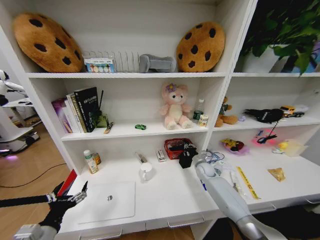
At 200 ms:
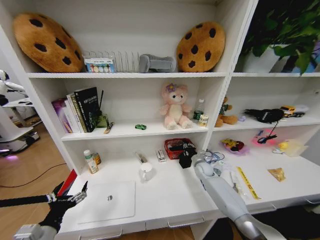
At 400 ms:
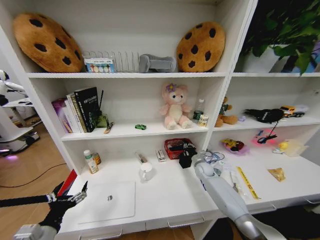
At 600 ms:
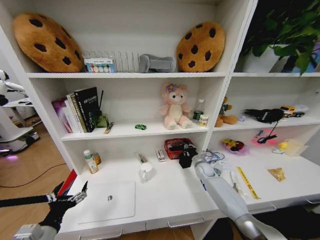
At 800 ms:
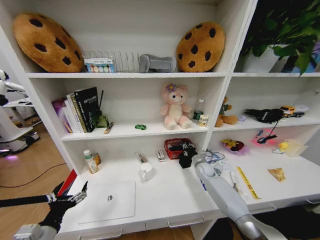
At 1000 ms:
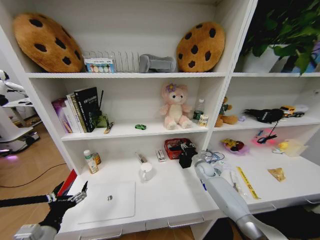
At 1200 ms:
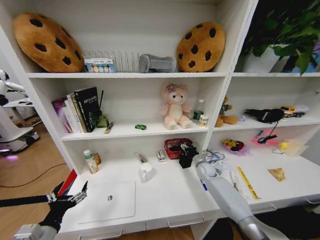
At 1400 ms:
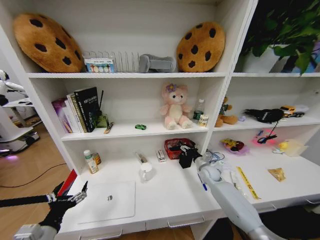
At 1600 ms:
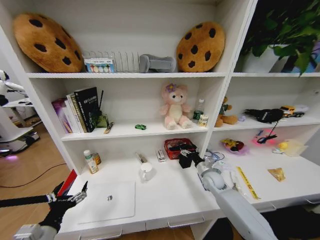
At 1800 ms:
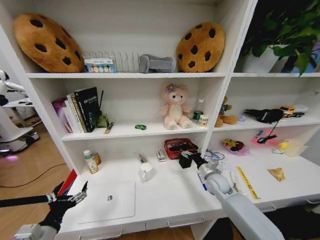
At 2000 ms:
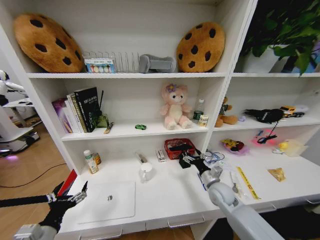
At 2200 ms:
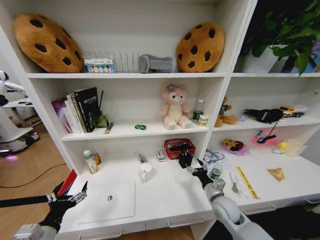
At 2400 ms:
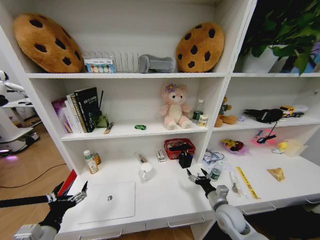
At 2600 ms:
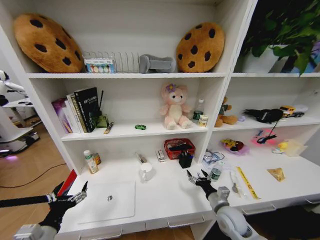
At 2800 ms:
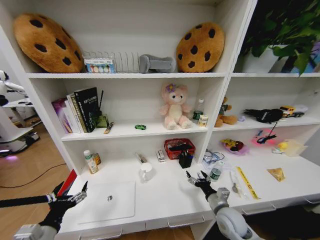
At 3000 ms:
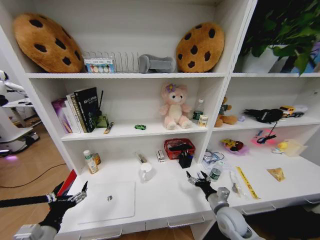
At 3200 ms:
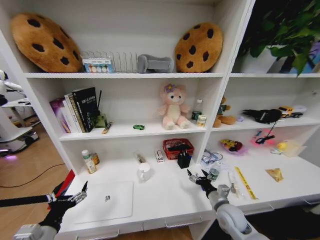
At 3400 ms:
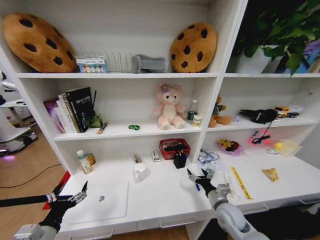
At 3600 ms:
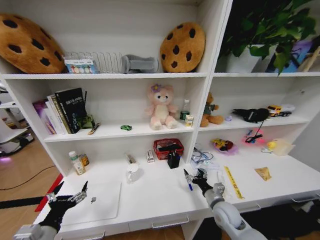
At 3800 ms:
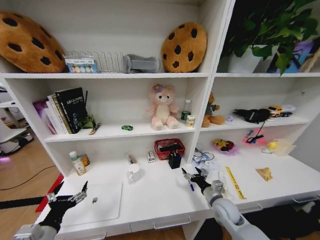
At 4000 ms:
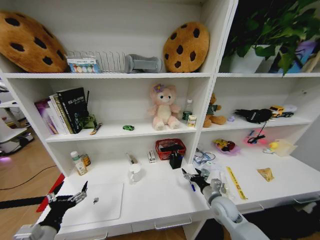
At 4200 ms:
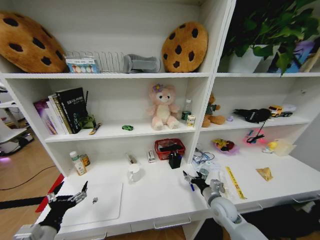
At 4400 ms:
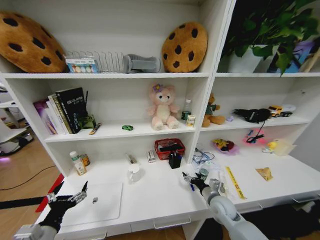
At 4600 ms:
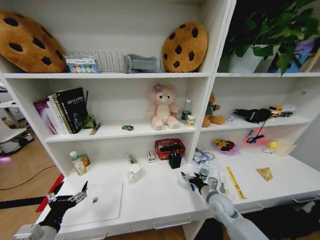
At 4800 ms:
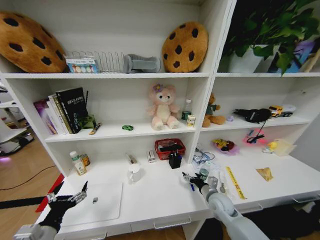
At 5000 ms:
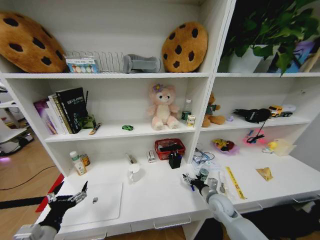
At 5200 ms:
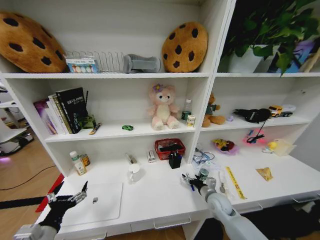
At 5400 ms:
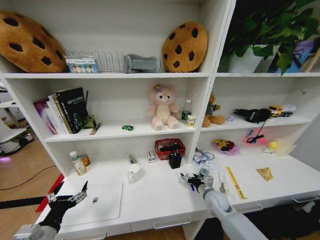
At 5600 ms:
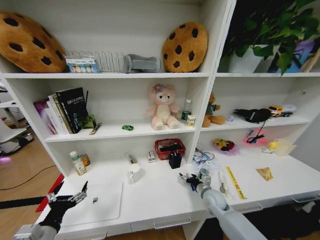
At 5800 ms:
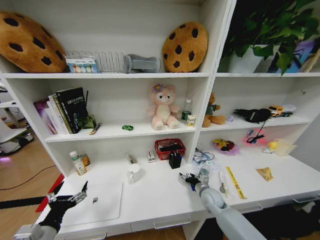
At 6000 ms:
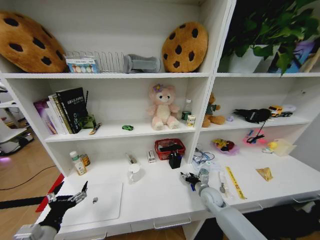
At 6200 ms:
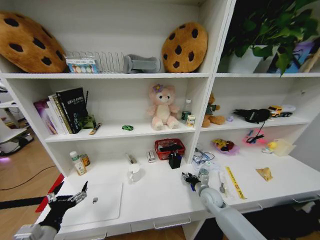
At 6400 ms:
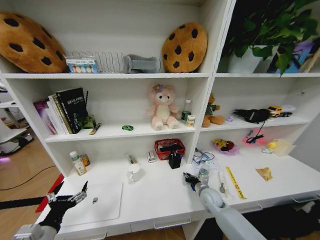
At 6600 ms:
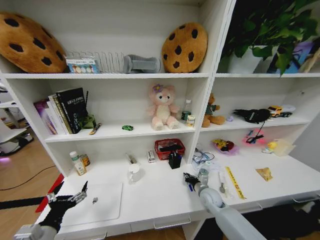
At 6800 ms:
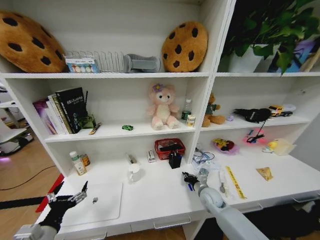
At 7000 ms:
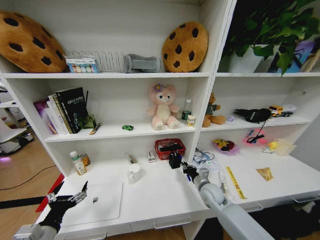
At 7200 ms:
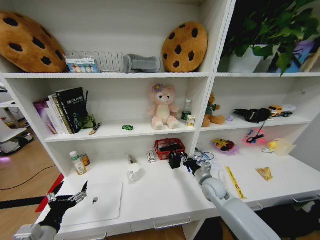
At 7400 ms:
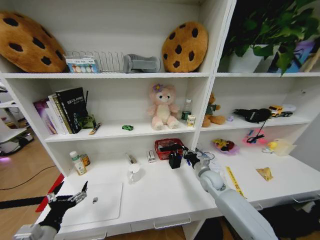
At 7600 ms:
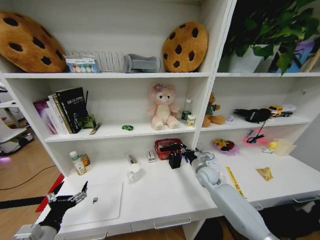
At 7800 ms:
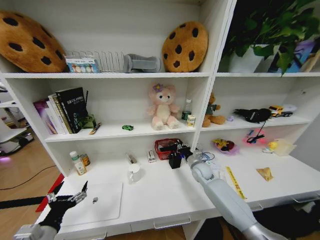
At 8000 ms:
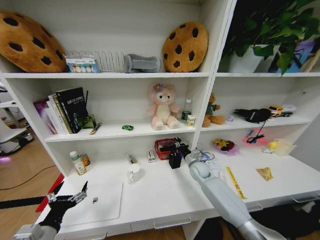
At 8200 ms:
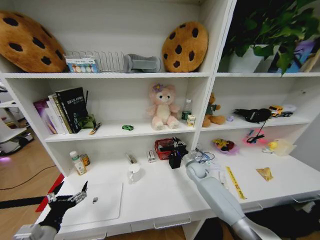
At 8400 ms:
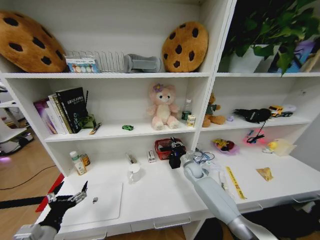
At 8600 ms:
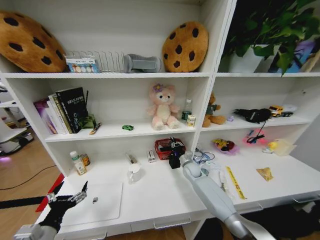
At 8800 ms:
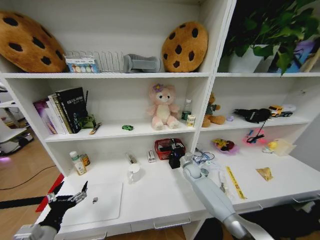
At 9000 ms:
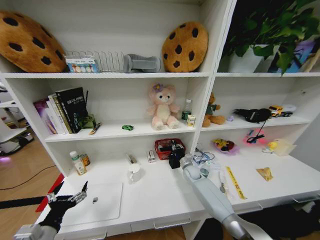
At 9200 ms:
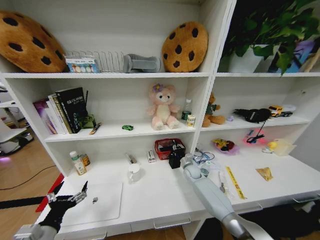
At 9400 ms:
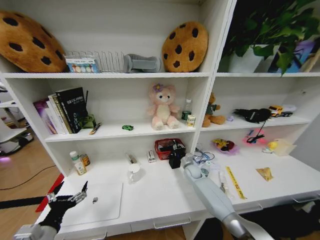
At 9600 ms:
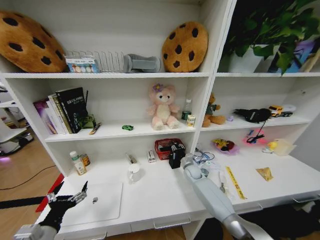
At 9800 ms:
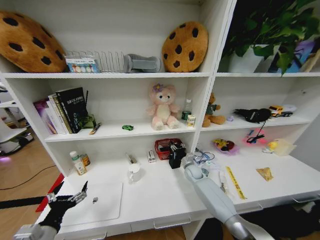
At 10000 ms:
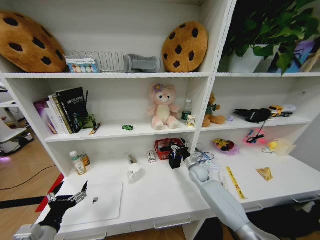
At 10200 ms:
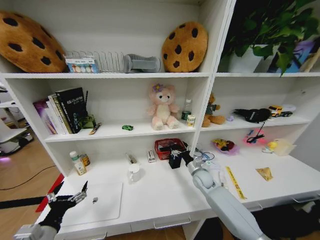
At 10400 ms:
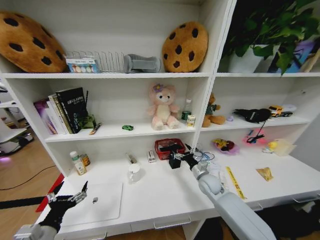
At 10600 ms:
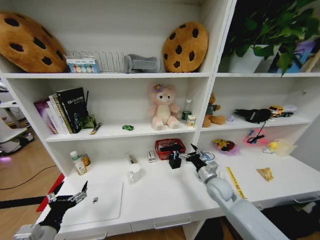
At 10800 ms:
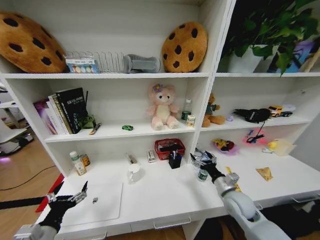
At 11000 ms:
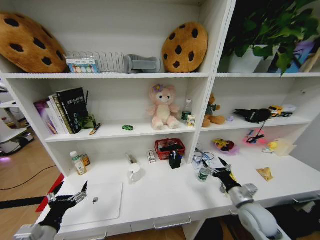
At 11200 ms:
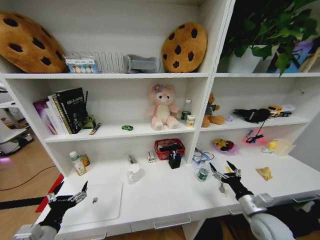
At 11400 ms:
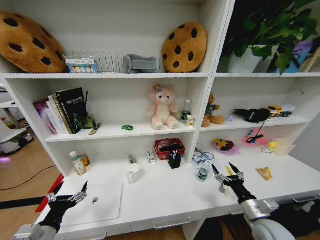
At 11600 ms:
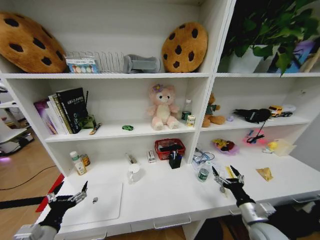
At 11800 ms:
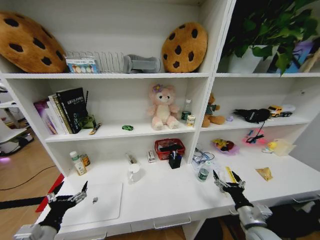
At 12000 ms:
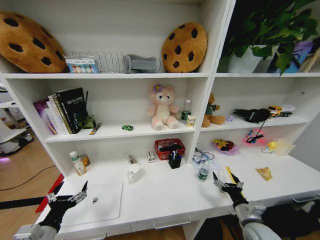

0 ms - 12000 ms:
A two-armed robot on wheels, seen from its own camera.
Task of the whole recording: Organize the objects on the table.
0 ms - 1600 ms: The right gripper travels backward by about 10 cm, and opens its fingers.
1600 ms - 3000 ms: The right gripper travels backward by some 15 cm.
3000 ms - 4400 ms: The right gripper ends up about 5 cm from where it was.
4400 ms - 6000 ms: The right gripper goes approximately 5 cm forward.
6000 ms - 7600 ms: The right gripper shifts approximately 10 cm forward and upward, and closes up.
7600 ms - 9000 ms: The right gripper travels downward and forward by roughly 10 cm.
9000 ms - 10400 ms: The right gripper moves backward and upward, about 15 cm, and opens.
10400 ms - 12000 ms: The right gripper travels backward and to the right by some 20 cm.

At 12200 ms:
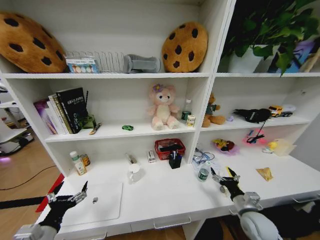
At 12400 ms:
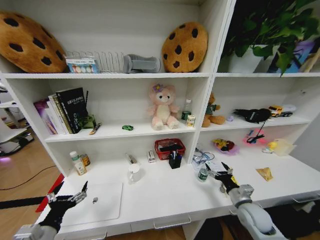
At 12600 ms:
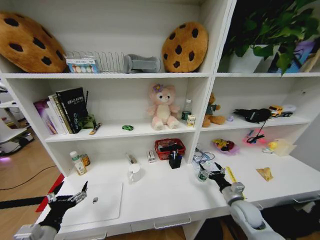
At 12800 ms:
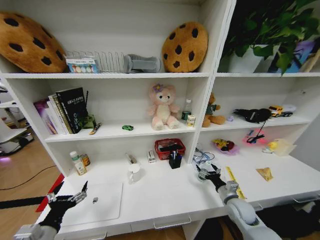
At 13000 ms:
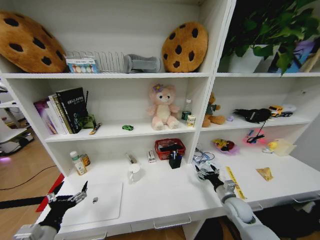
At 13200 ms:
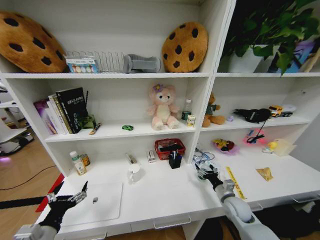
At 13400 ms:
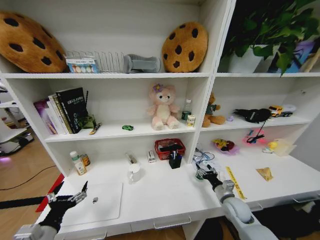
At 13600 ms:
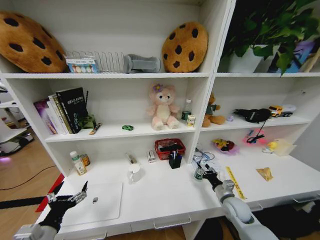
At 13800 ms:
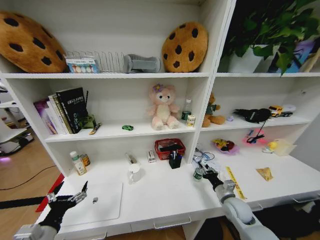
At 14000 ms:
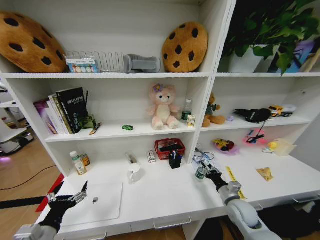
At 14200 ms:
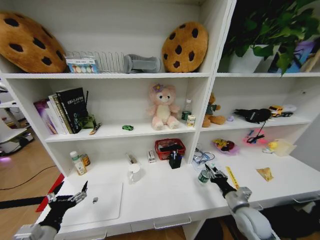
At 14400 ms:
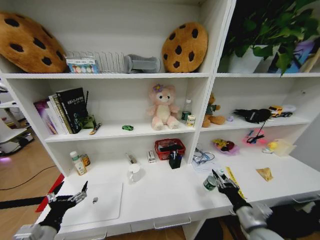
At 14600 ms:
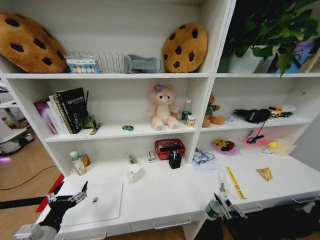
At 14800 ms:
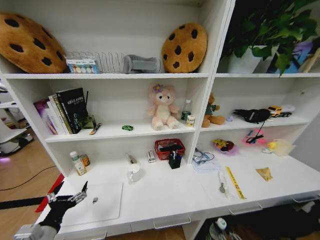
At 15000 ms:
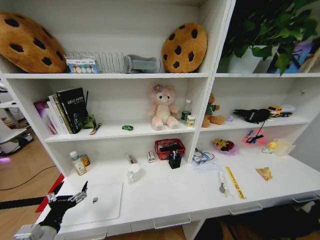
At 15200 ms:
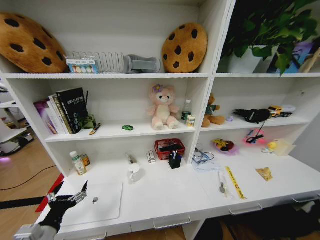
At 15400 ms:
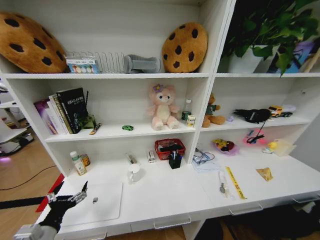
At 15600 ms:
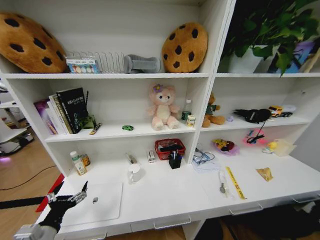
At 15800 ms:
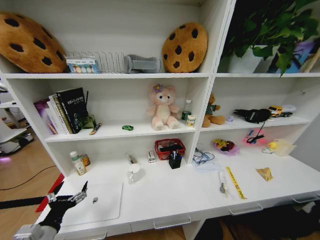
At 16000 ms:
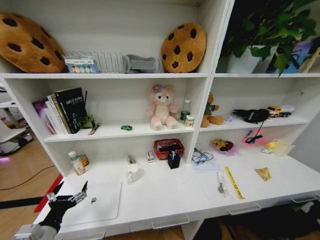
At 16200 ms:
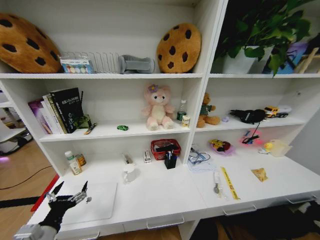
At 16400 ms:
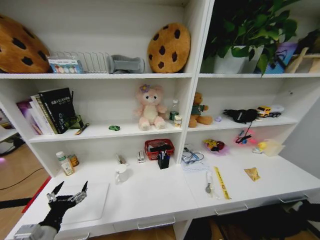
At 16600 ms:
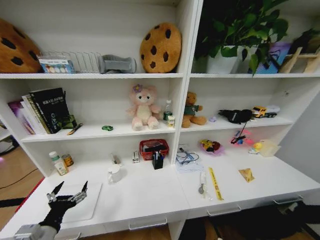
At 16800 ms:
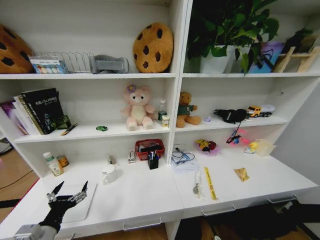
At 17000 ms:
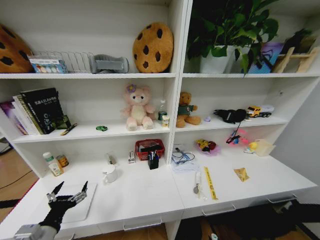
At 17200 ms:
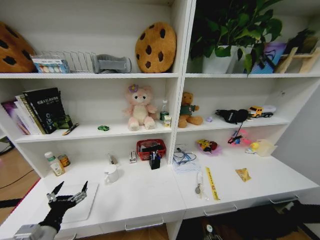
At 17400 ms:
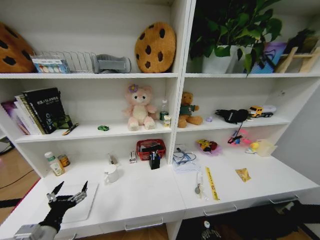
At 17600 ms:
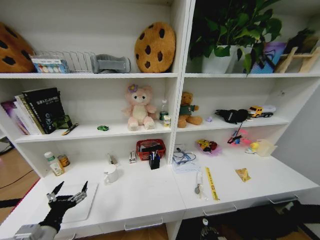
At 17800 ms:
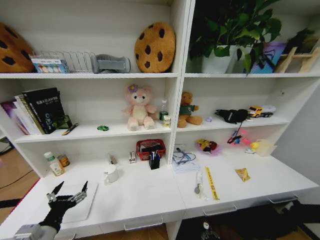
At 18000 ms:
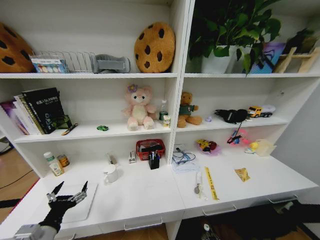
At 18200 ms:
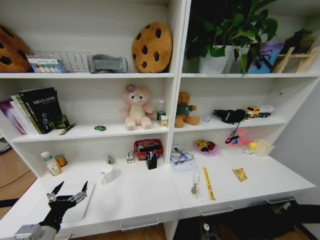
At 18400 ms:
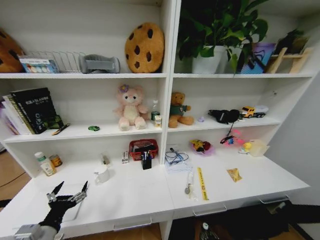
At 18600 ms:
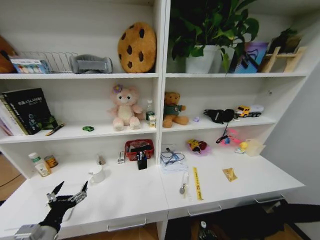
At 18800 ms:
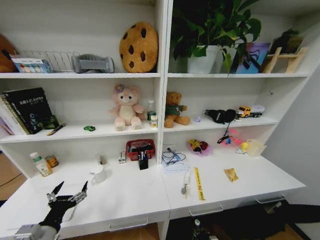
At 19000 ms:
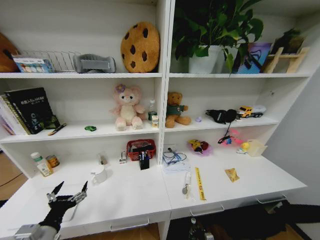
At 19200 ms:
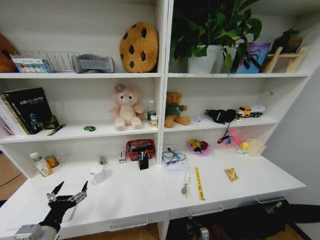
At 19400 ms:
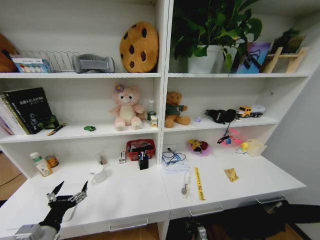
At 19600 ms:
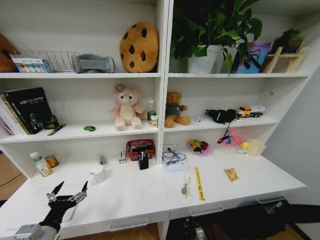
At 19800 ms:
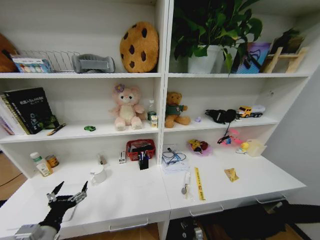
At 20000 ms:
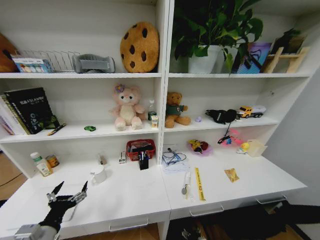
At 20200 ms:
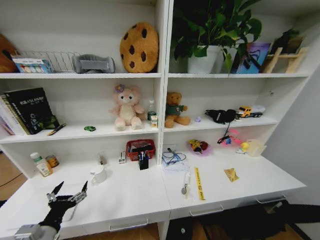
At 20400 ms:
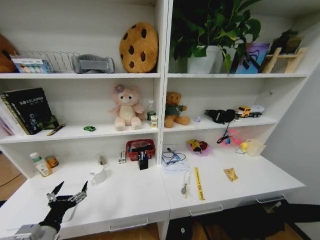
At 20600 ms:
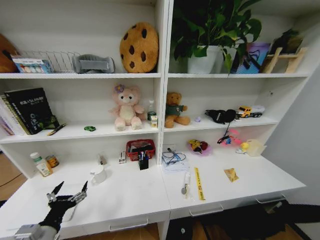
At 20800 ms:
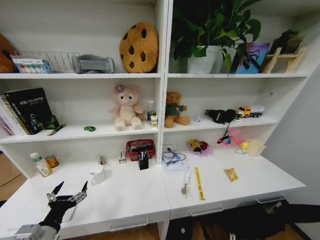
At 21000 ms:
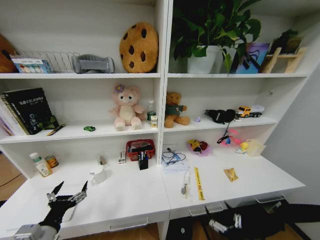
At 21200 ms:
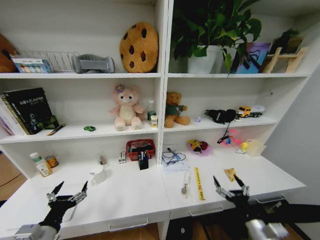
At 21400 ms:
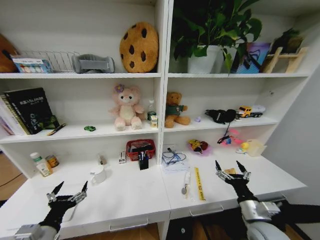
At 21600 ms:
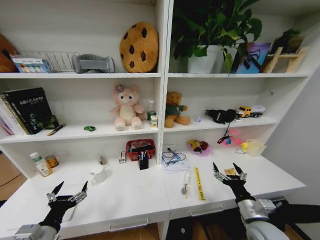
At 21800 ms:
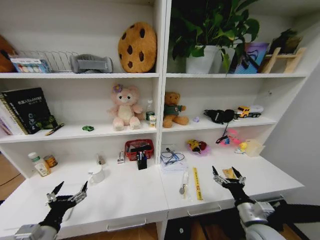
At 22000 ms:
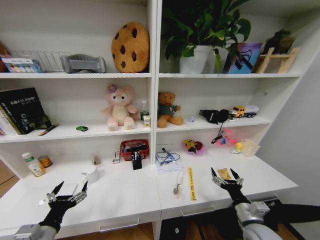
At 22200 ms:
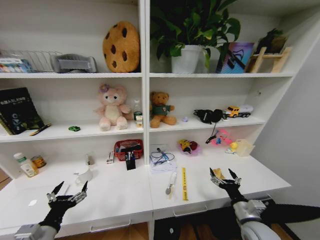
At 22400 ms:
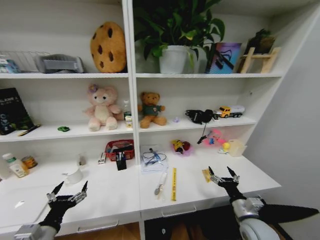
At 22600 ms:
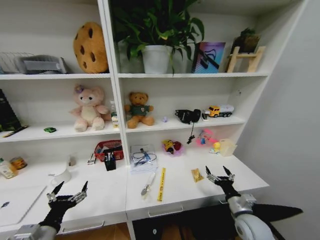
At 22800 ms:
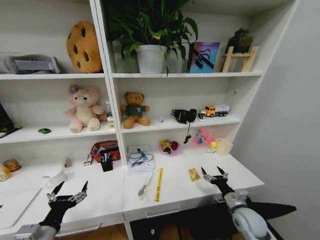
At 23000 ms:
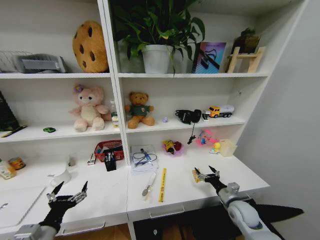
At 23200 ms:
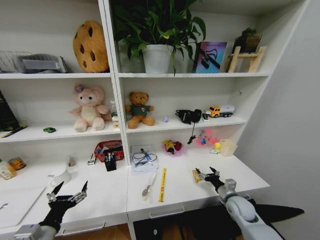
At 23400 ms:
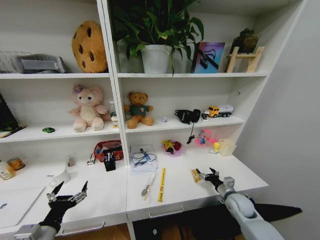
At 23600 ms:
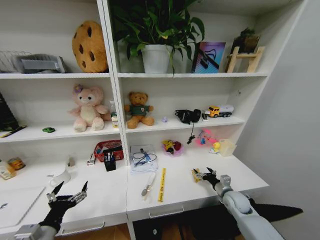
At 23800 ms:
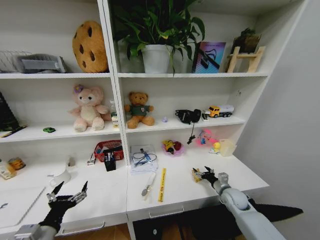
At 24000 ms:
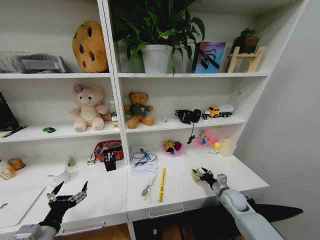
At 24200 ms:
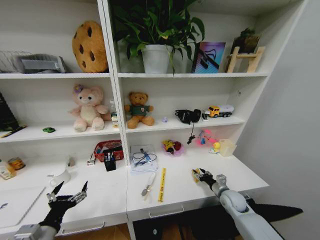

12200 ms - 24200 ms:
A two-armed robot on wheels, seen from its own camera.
Task of the whole recording: Organize the objects on the table.
12200 ms - 13800 ms: The right gripper heads forward, covering about 5 cm, and closes its fingers.
13800 ms - 15200 ms: The right gripper is displaced backward by about 35 cm.
15200 ms - 16600 ms: The right gripper shifts some 5 cm downward.
16600 ms - 18200 ms: The right gripper heads forward and downward, covering roughly 10 cm.
18200 ms - 19800 ms: The right gripper goes roughly 15 cm forward, to the left and downward.
19800 ms - 21200 ms: The right gripper heads upward, covering approximately 35 cm, and opens.
21200 ms - 22600 ms: The right gripper goes roughly 10 cm forward.
22600 ms - 24200 ms: The right gripper shifts about 10 cm forward, and closes.
